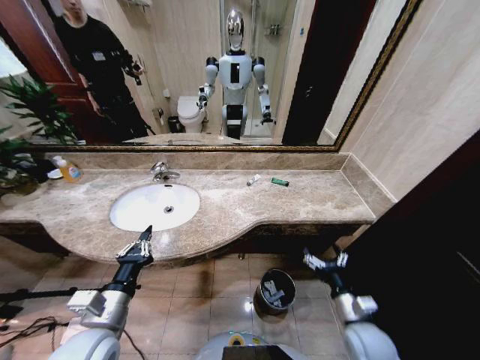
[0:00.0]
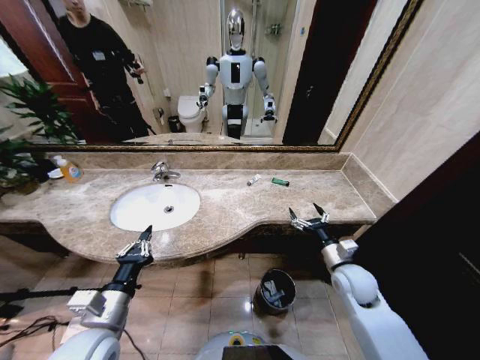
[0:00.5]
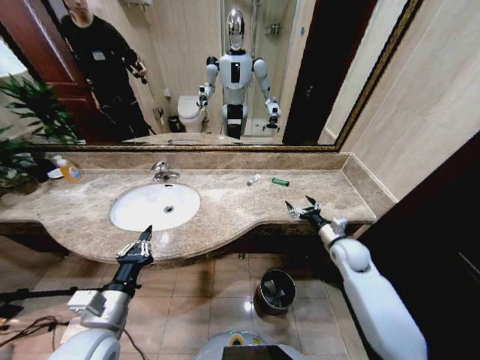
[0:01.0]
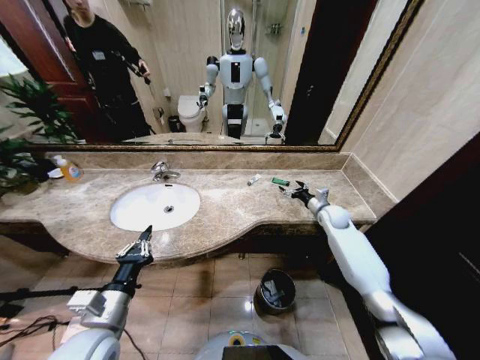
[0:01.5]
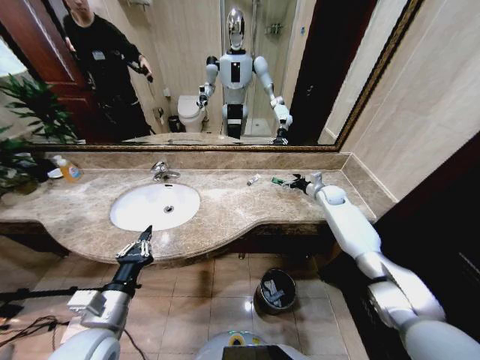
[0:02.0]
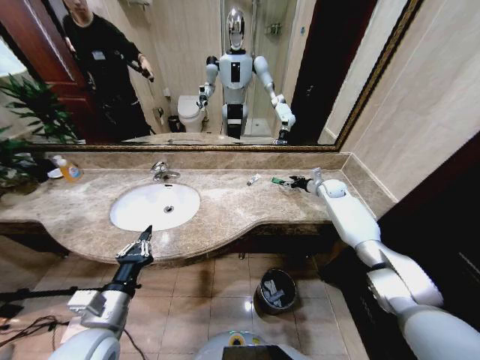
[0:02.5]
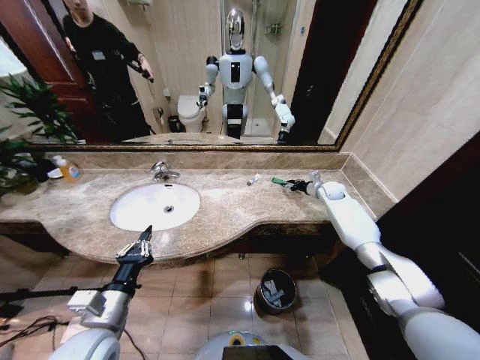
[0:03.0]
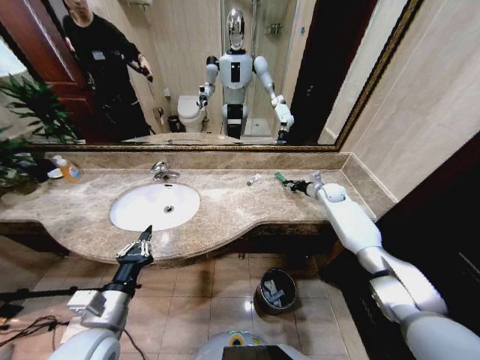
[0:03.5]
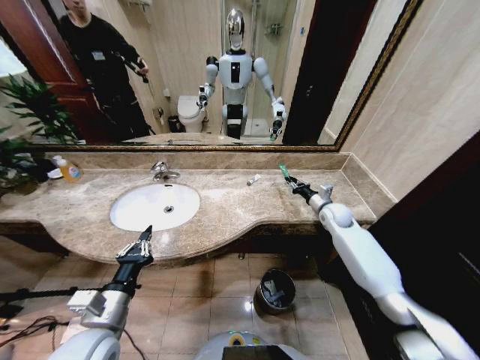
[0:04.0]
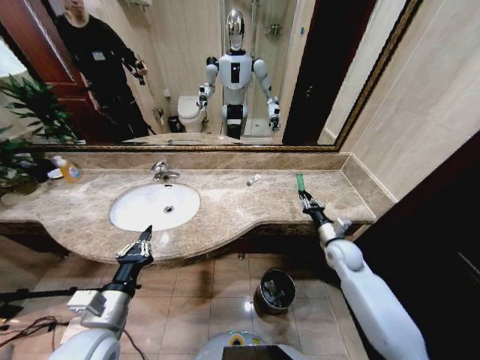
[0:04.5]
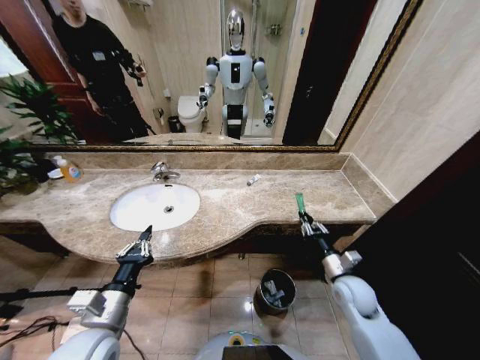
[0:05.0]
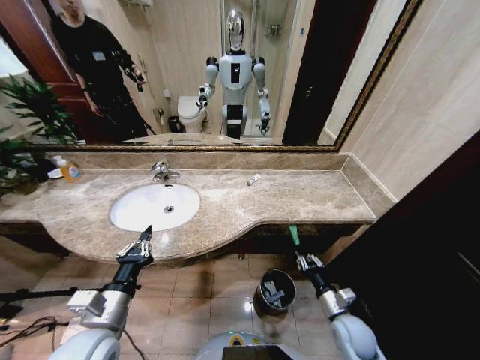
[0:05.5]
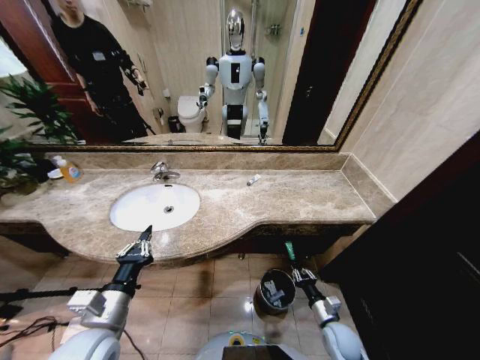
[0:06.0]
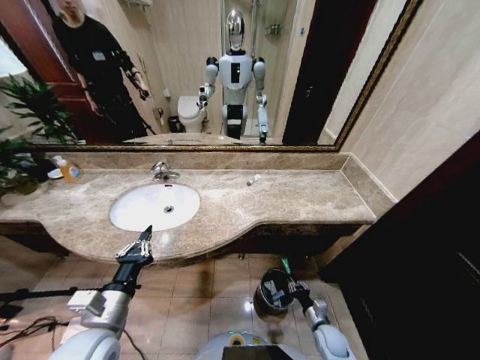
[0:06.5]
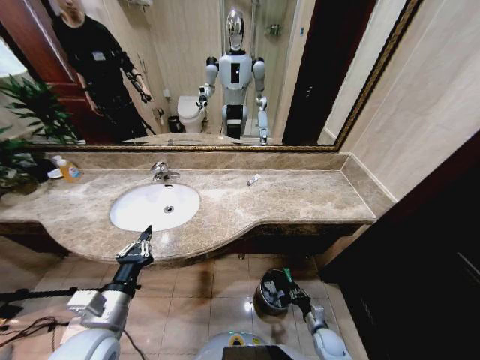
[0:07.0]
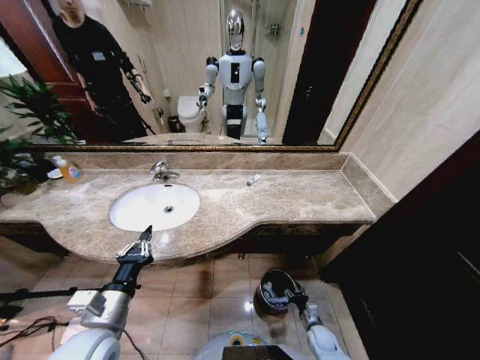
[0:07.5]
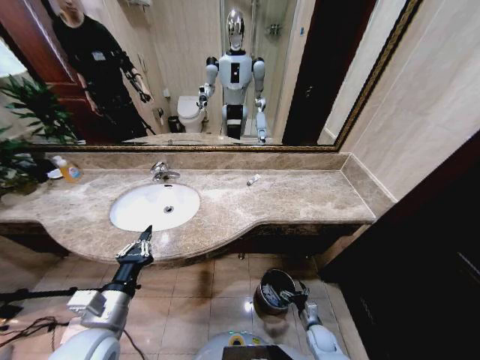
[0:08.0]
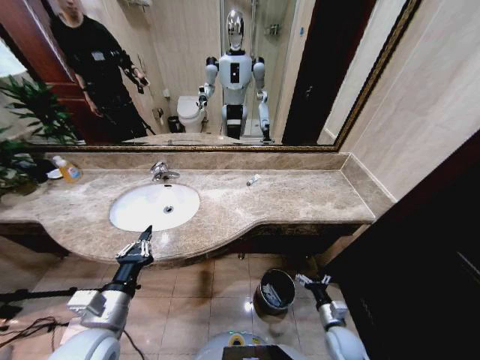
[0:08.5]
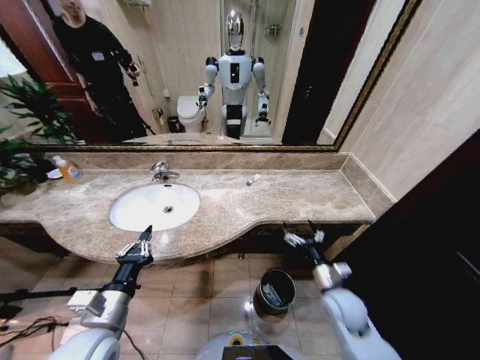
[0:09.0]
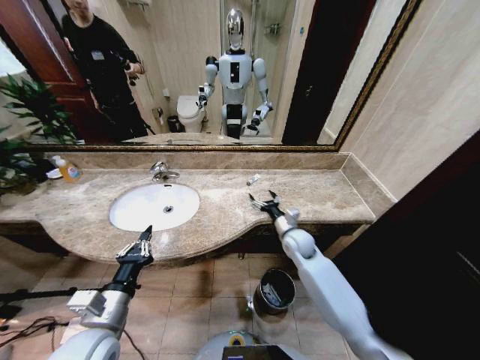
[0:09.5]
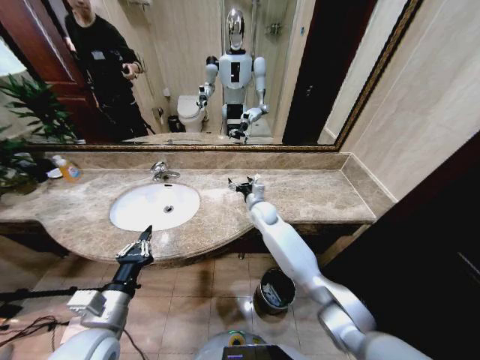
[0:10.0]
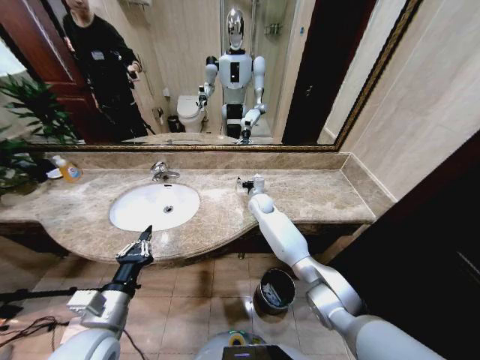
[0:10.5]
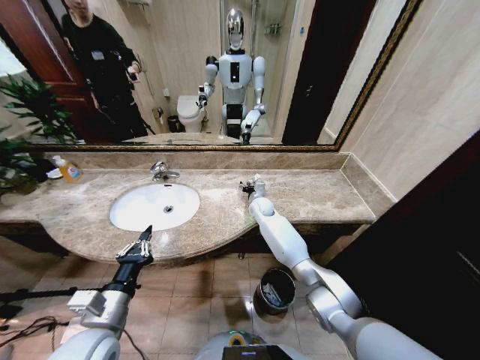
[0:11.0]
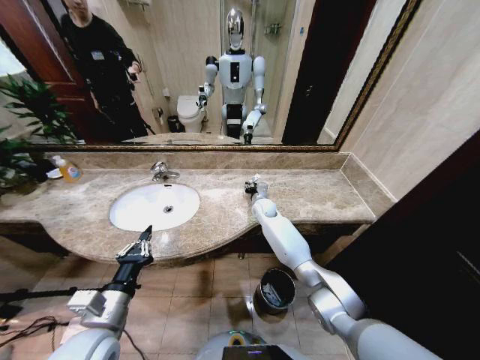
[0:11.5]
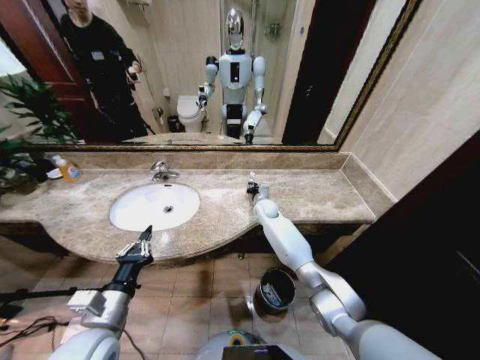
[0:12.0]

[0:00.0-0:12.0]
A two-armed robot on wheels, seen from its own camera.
Task of the whole recording: Pick up the trash from the sink and place it in the trash bin.
0:00.0 to 0:02.0: The right gripper moves forward, approximately 40 cm.
0:02.0 to 0:04.0: The right gripper heads backward, covering some 10 cm, and closes its fingers.
0:04.0 to 0:06.0: The right gripper heads backward and downward, covering approximately 40 cm.
0:06.0 to 0:08.0: The right gripper travels downward by about 15 cm, and opens.
0:08.0 to 0:10.0: The right gripper is displaced forward, upward and to the left by roughly 50 cm.
0:10.0 to 0:12.0: The right gripper changes place by some 5 cm, and closes its fingers.

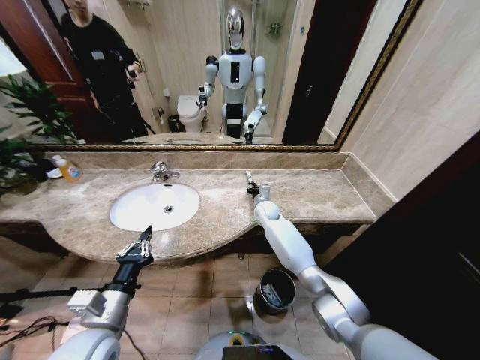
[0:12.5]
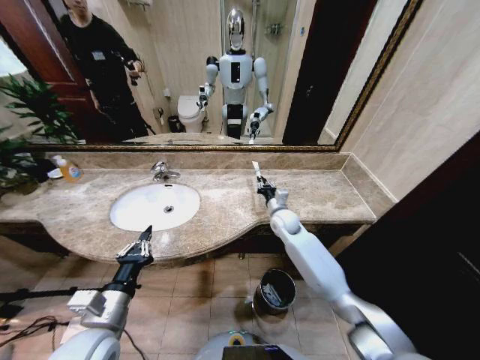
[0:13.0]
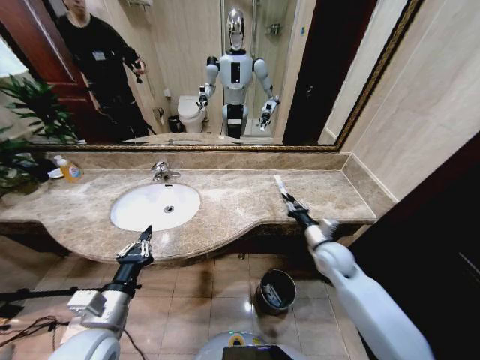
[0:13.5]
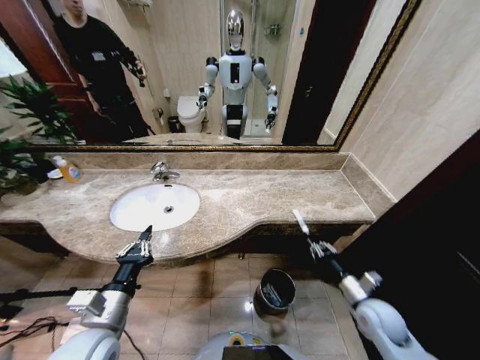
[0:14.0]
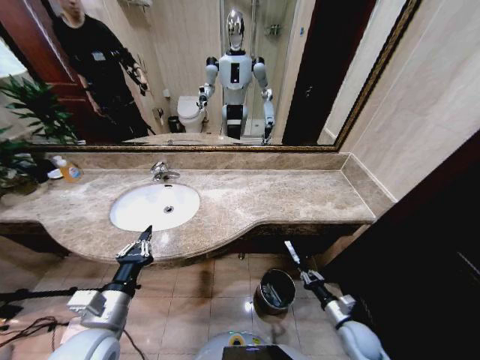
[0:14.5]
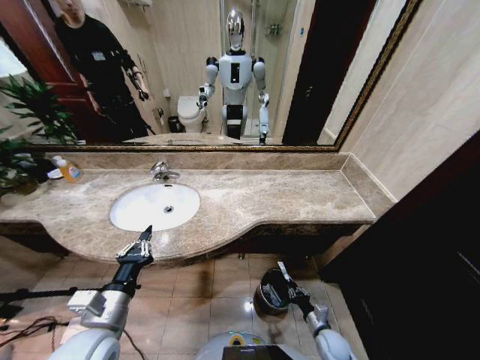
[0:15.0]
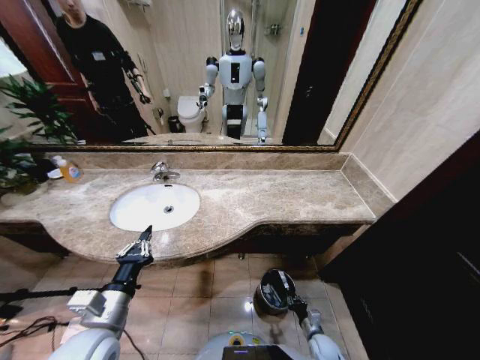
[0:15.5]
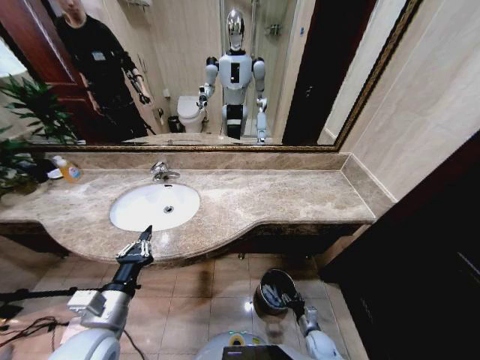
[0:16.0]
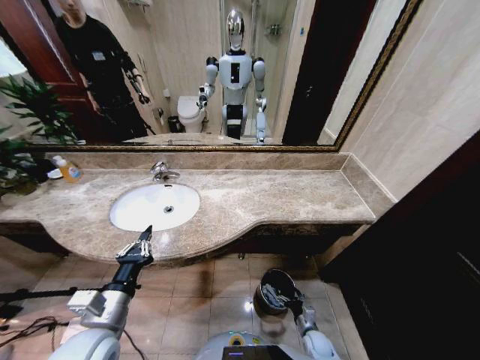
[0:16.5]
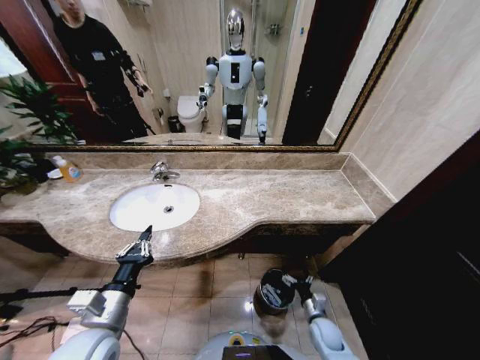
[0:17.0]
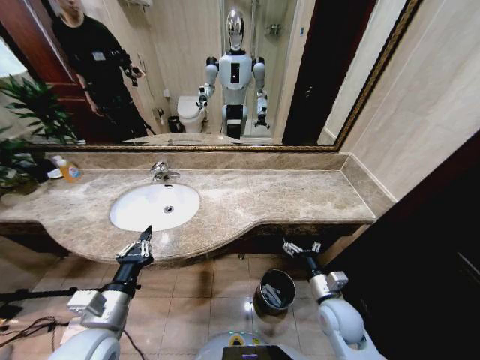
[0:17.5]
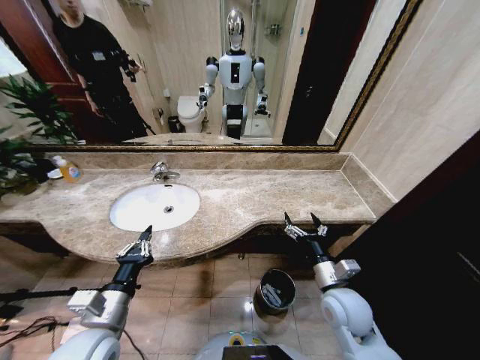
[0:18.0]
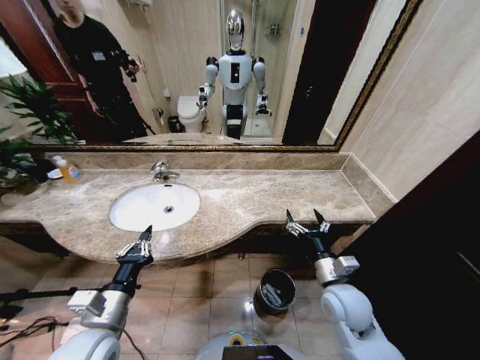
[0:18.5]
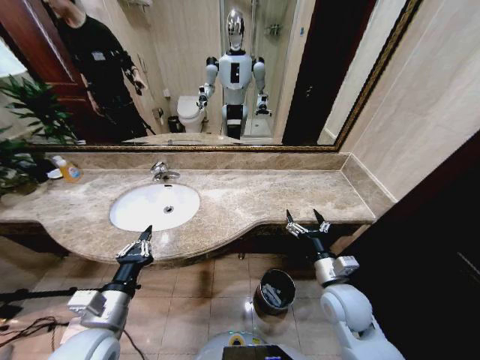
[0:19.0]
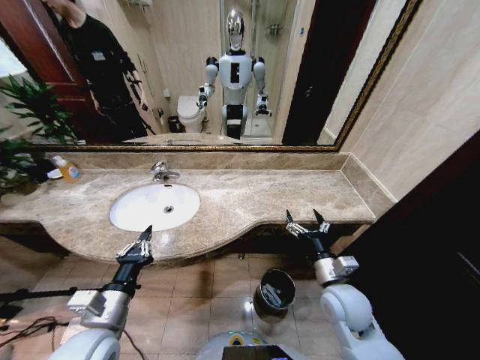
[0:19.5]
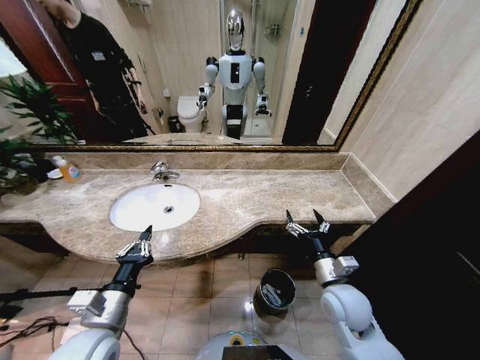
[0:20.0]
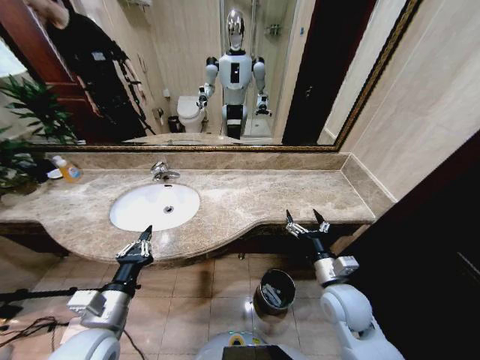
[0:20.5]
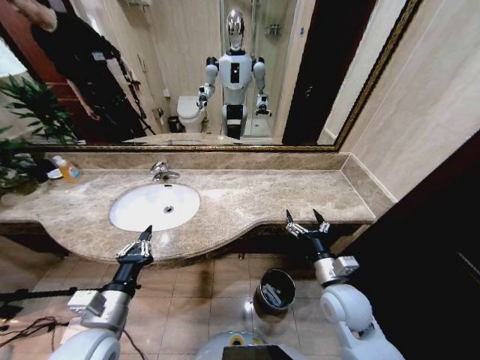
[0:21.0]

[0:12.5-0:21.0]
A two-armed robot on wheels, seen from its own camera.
Task of the whole recording: Pick up the trash from the sink and place it in the trash bin.
0:12.5 to 0:14.5: The right gripper is displaced backward, to the right and downward by roughly 50 cm.
0:14.5 to 0:16.5: The right gripper heads downward and to the left, covering roughly 15 cm, and opens its fingers.
0:16.5 to 0:19.0: The right gripper goes approximately 35 cm upward.
0:19.0 to 0:21.0: Neither gripper changes place.

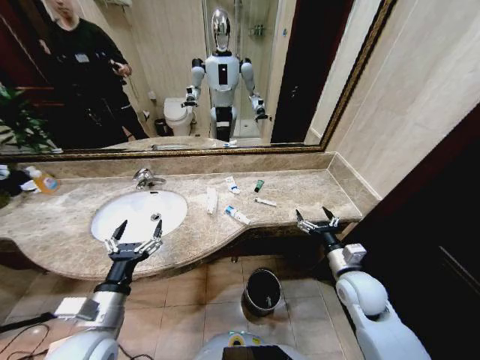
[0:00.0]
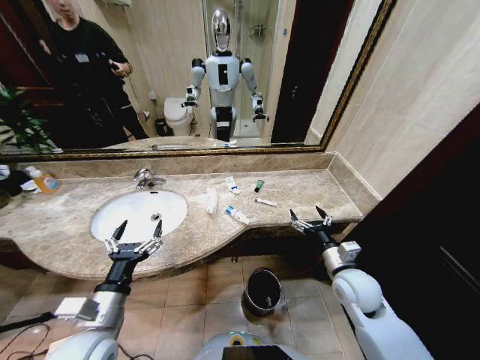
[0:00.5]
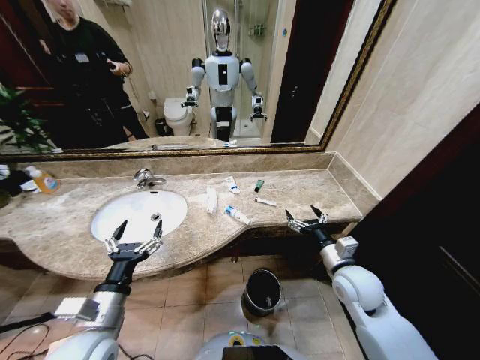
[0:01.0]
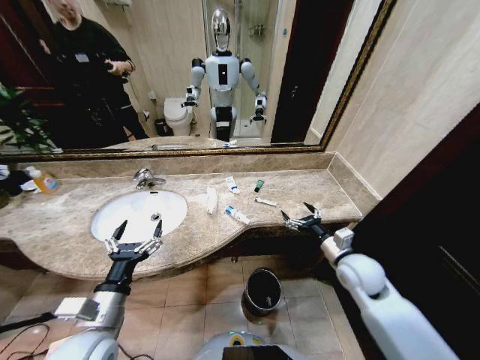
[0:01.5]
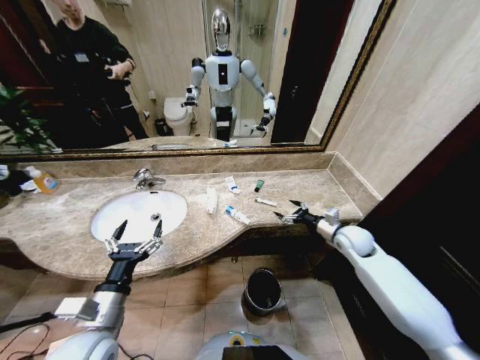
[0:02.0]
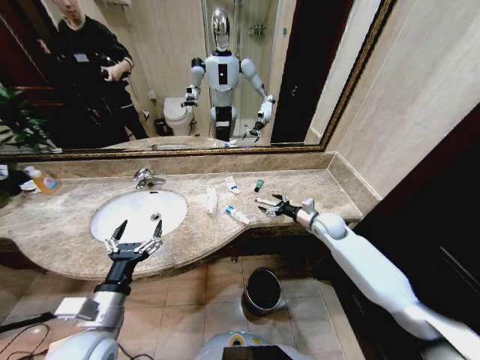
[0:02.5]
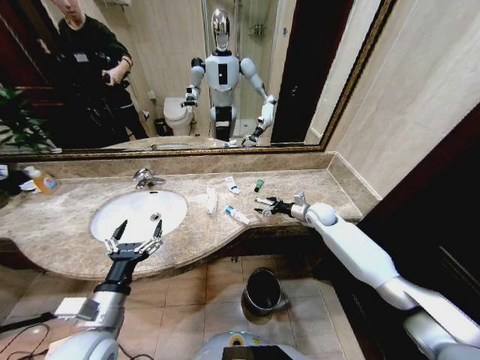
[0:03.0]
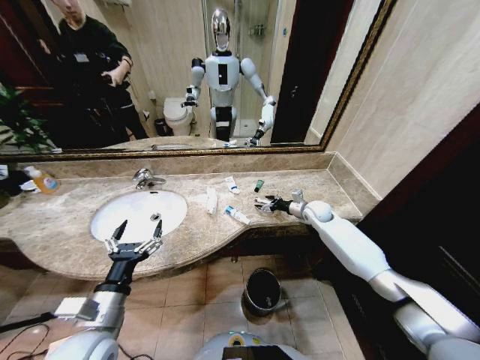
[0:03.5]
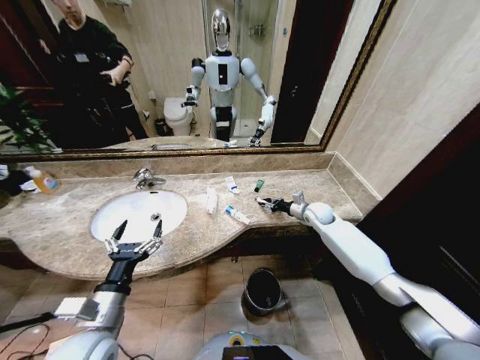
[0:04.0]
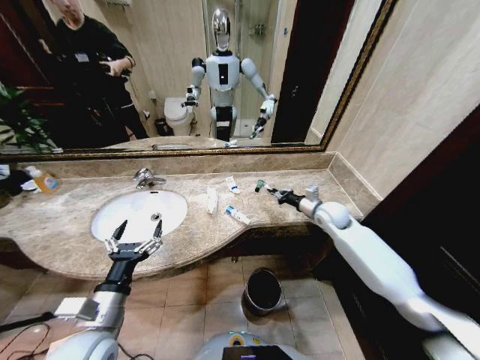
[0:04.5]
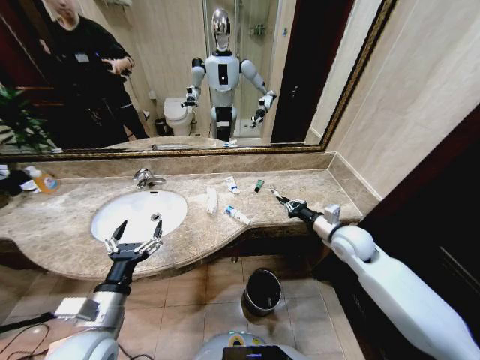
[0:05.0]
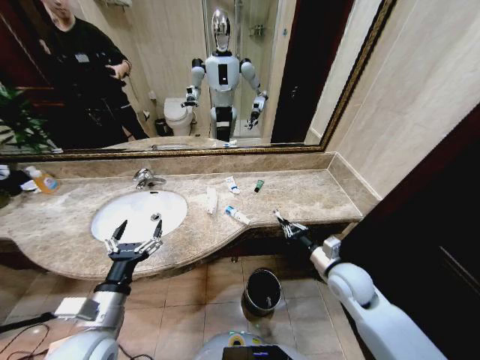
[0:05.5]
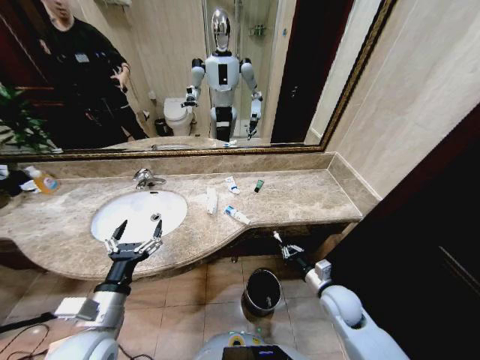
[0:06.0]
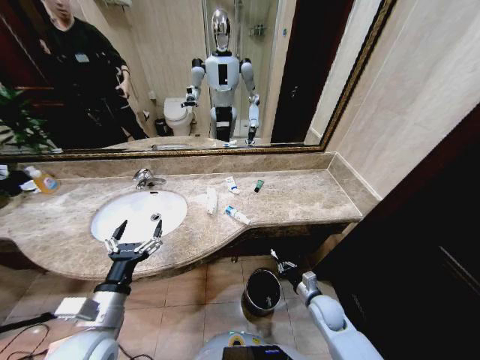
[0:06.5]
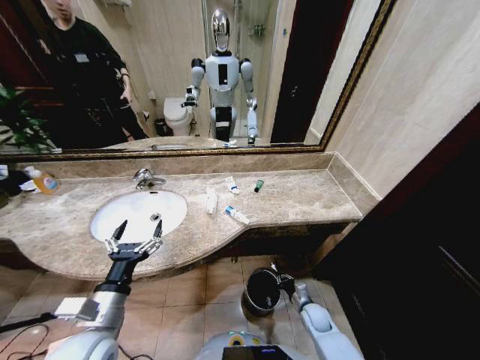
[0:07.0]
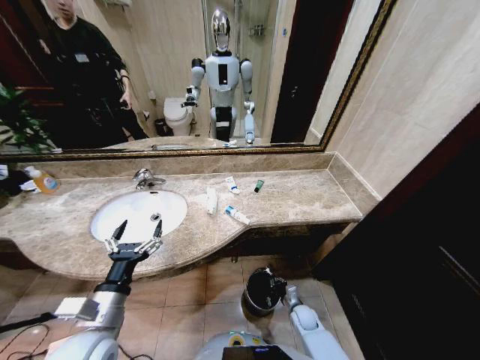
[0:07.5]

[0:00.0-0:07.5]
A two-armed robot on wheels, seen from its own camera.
Task of the whole recording: Pick up the trash from the sink and place it in the trash bin.
0:02.0 to 0:04.0: The right gripper shifts some 15 cm forward and to the left, and closes its fingers.
0:04.0 to 0:05.5: The right gripper travels backward by some 25 cm, and closes up.
0:05.5 to 0:07.5: The right gripper shifts roughly 30 cm downward.
